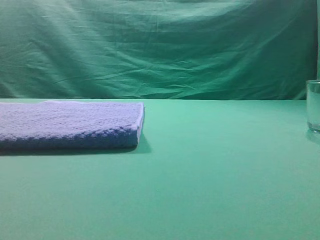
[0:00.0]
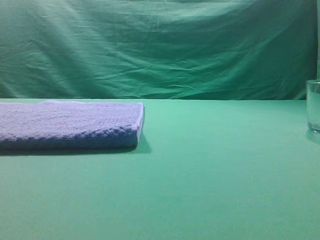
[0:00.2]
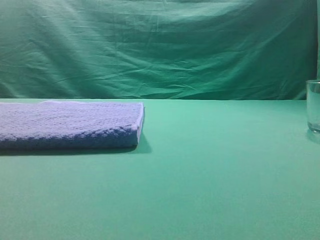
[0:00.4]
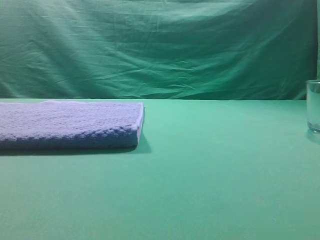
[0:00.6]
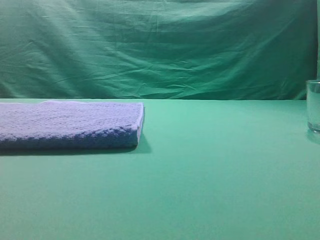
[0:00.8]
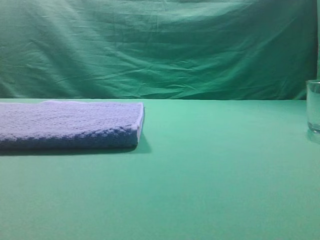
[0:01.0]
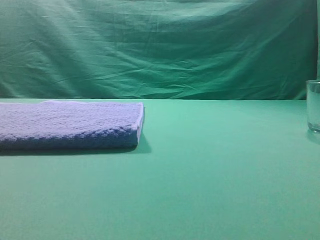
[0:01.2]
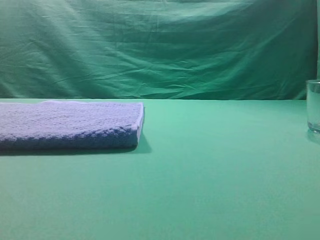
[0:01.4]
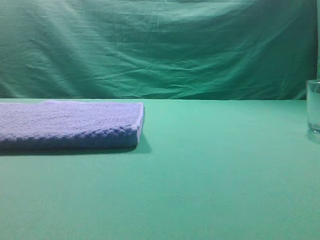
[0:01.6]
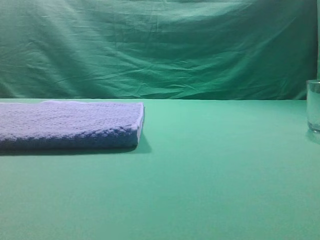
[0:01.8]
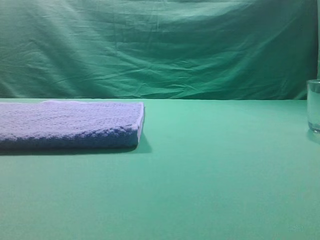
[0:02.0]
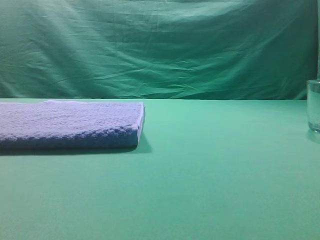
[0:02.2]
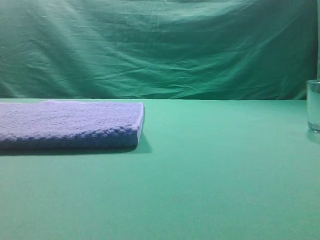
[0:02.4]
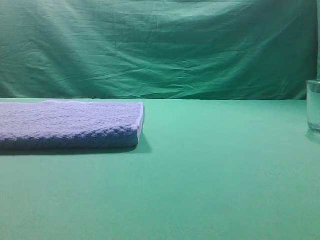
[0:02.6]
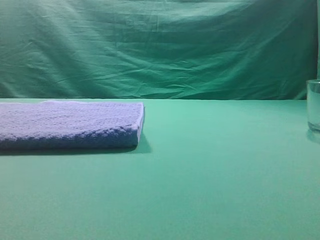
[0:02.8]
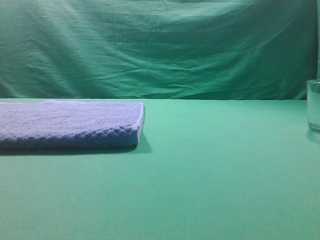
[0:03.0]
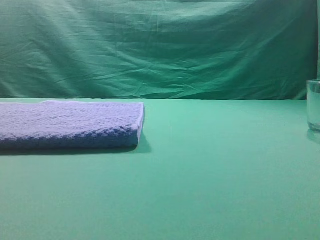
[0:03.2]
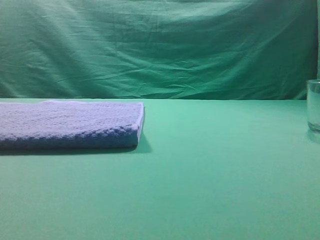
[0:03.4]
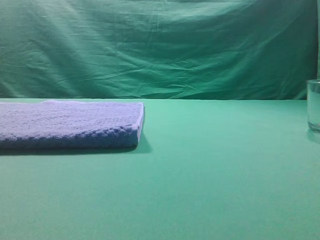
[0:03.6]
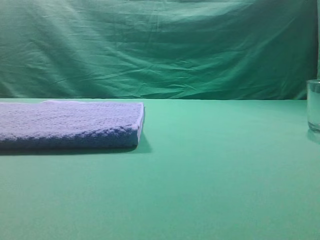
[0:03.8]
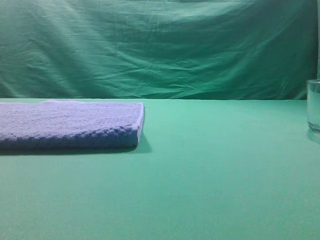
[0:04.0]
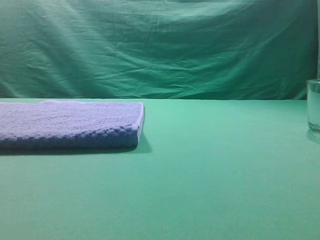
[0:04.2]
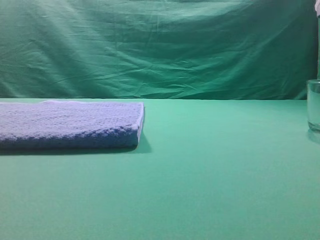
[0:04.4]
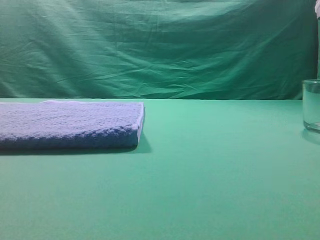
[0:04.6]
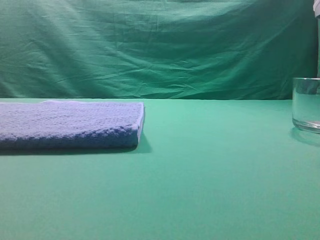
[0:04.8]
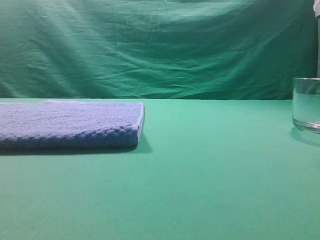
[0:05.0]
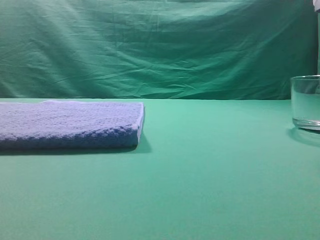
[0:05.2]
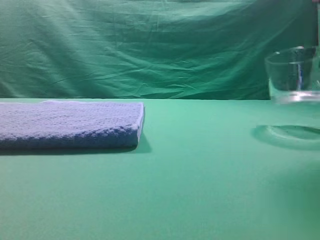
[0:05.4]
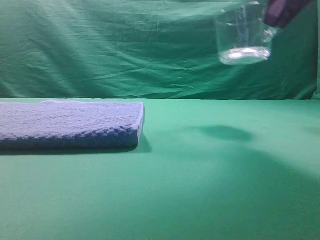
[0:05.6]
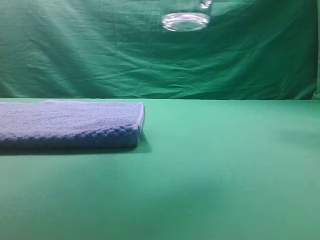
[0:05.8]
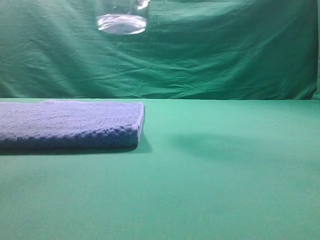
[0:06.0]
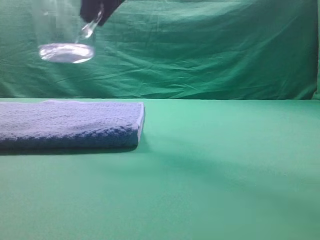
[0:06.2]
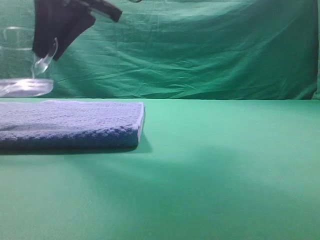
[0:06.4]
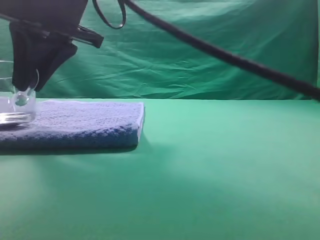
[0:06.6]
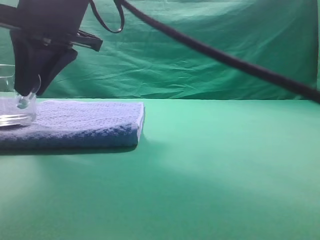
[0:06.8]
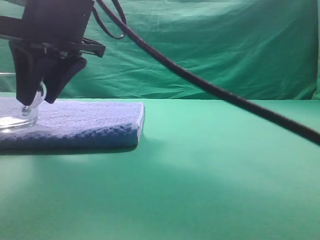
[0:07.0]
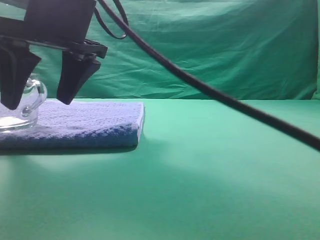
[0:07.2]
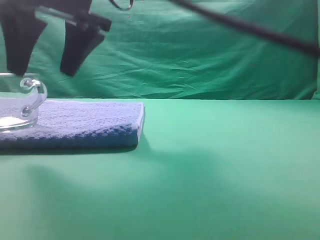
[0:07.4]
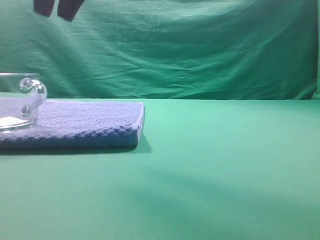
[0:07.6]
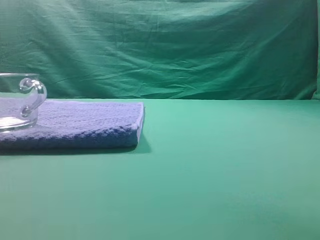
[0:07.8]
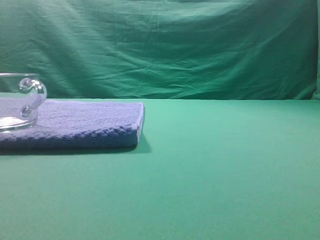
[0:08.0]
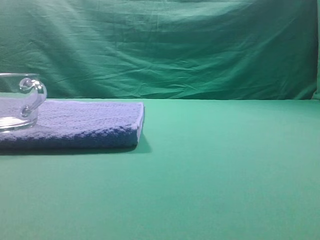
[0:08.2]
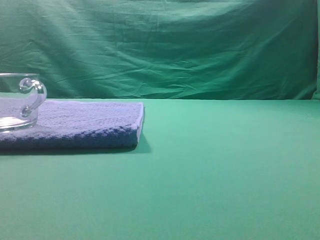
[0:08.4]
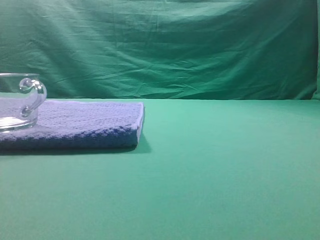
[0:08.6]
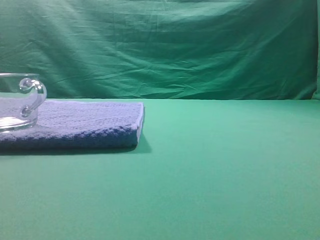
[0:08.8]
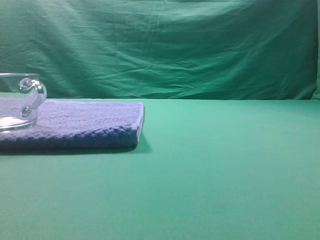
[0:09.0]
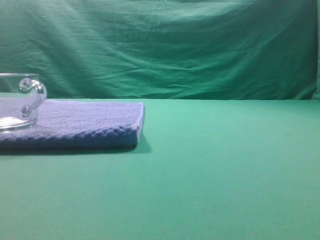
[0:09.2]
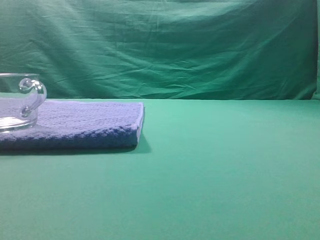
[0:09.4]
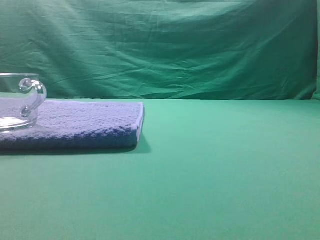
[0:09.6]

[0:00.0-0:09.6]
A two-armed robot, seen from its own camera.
Task of the whole recording: grasp the transparent glass cup and place it within the blue towel.
Step, 0:00.0 to 0:05.2: Grasp the transparent glass cup.
Step, 0:05.6 to 0:07.4: Place the glass cup on the blue zone.
